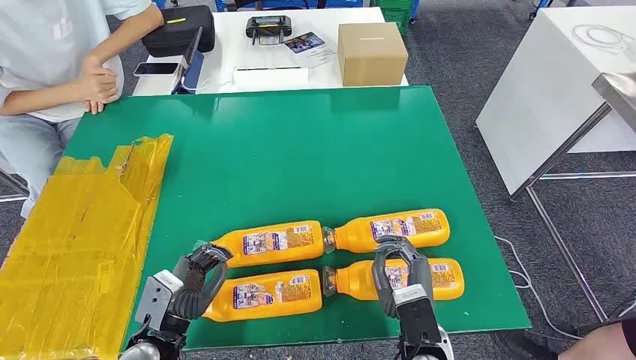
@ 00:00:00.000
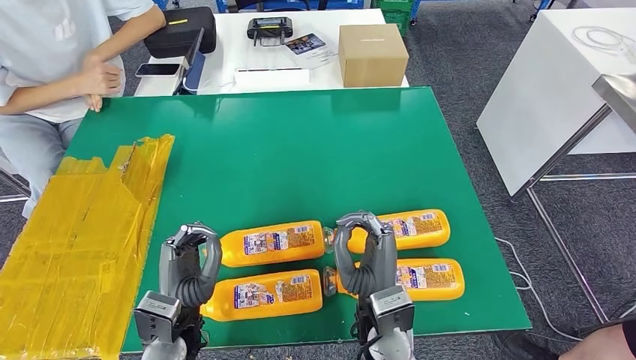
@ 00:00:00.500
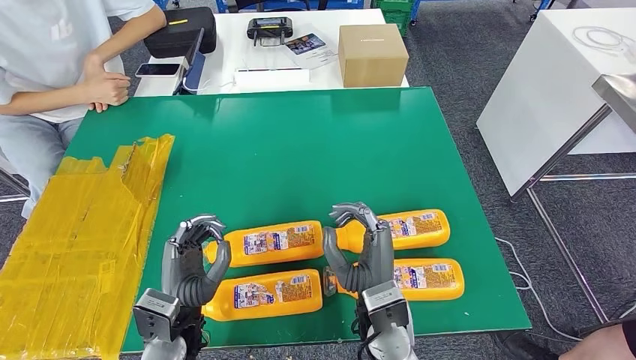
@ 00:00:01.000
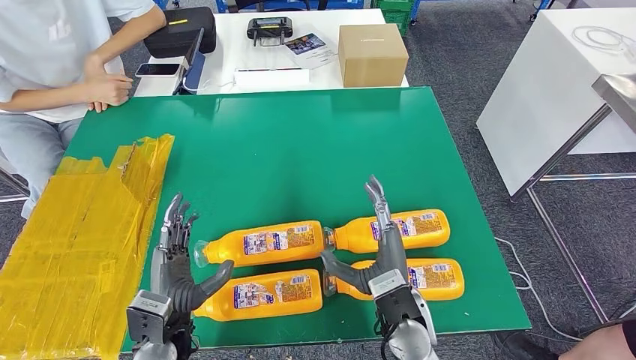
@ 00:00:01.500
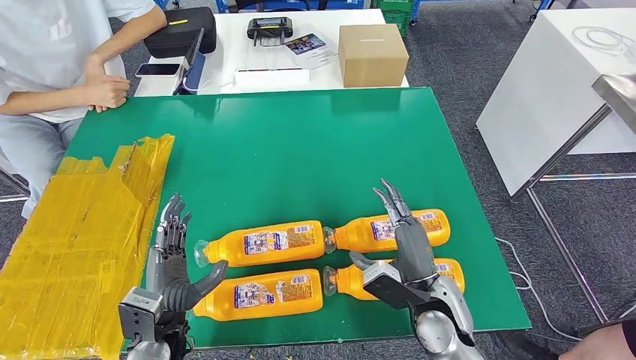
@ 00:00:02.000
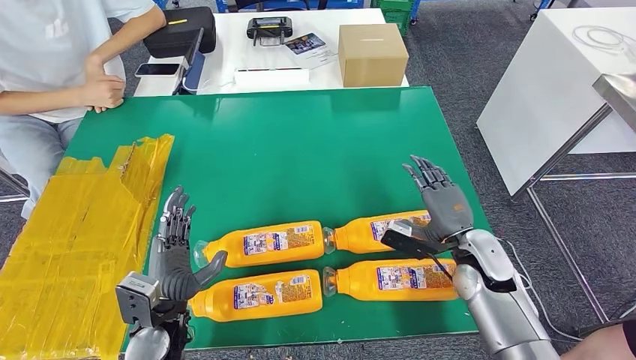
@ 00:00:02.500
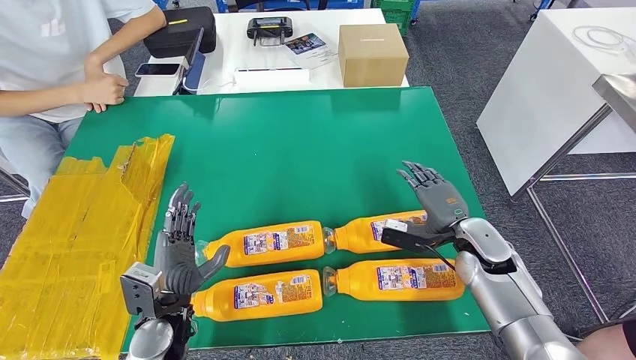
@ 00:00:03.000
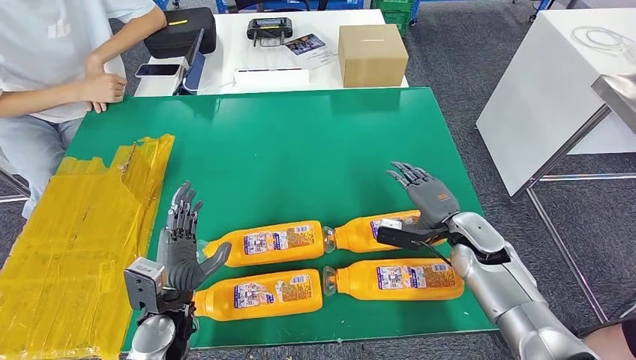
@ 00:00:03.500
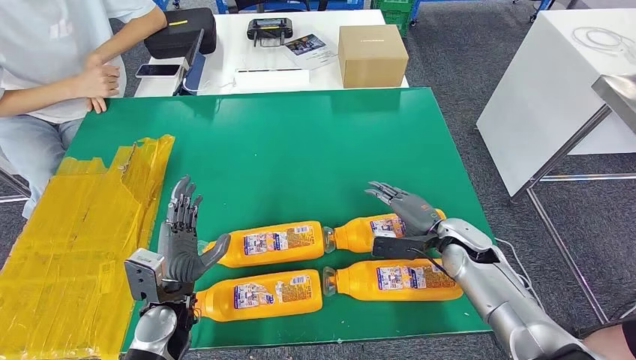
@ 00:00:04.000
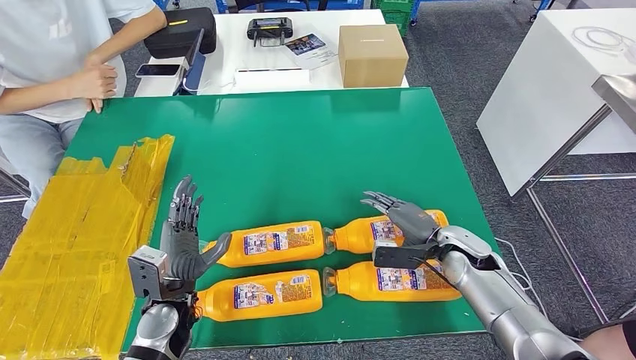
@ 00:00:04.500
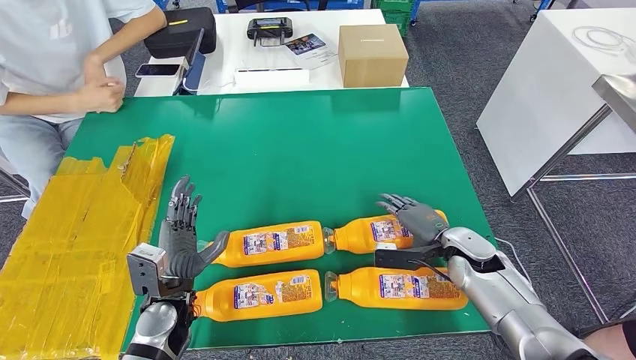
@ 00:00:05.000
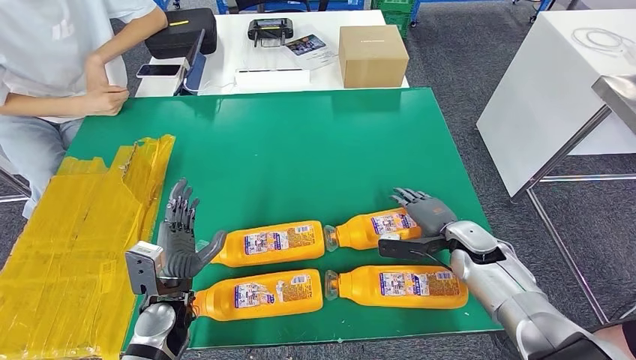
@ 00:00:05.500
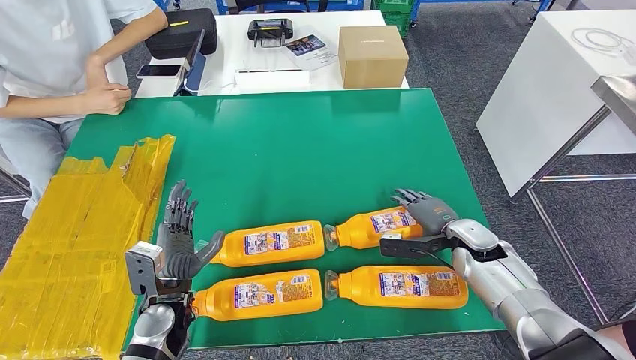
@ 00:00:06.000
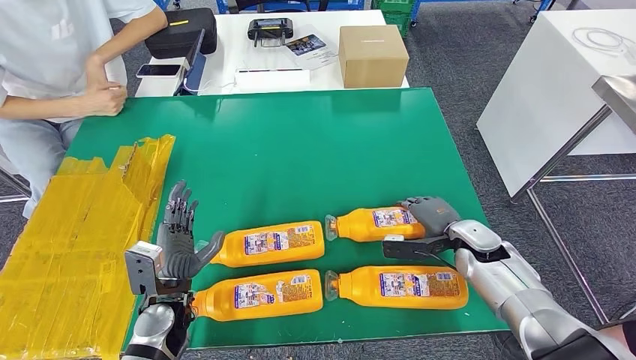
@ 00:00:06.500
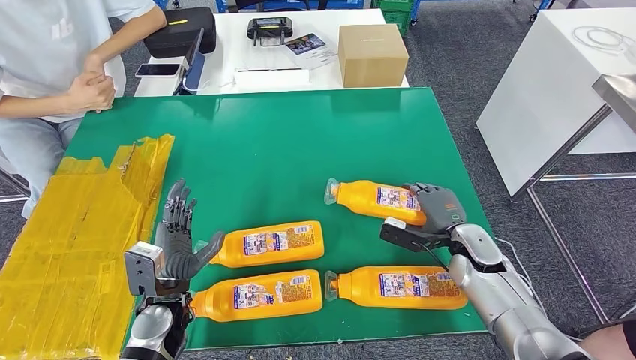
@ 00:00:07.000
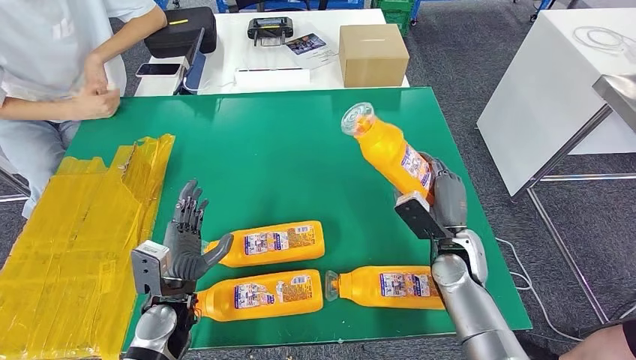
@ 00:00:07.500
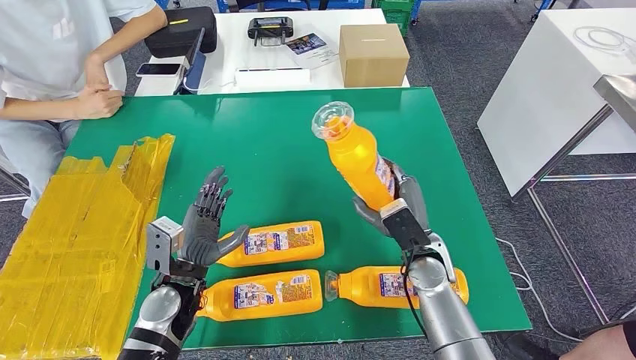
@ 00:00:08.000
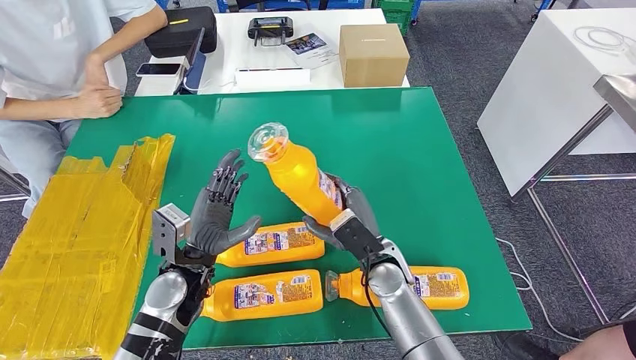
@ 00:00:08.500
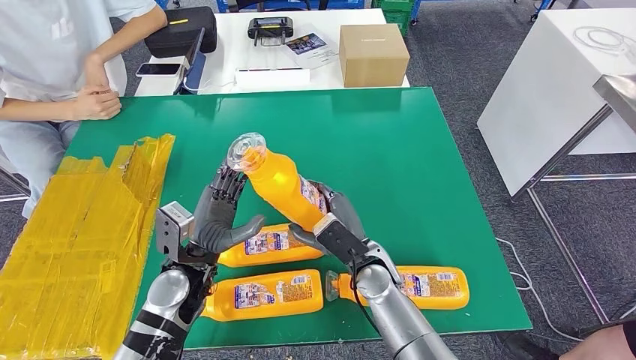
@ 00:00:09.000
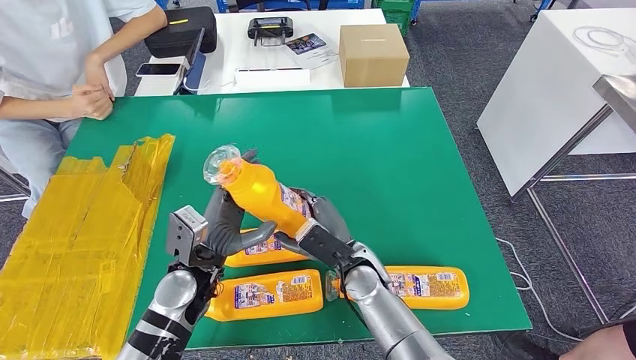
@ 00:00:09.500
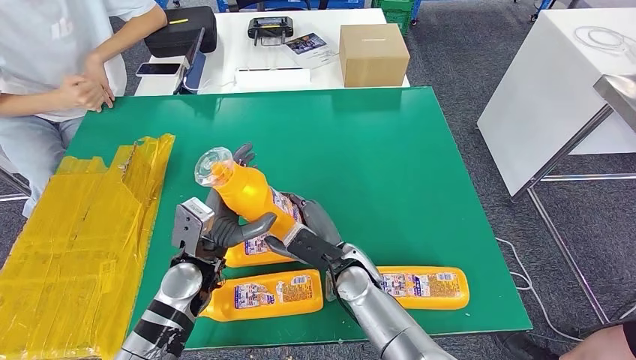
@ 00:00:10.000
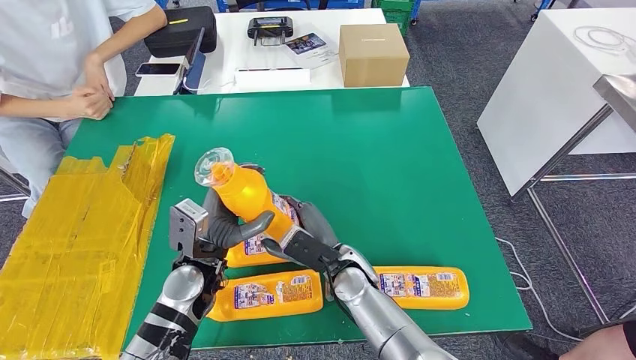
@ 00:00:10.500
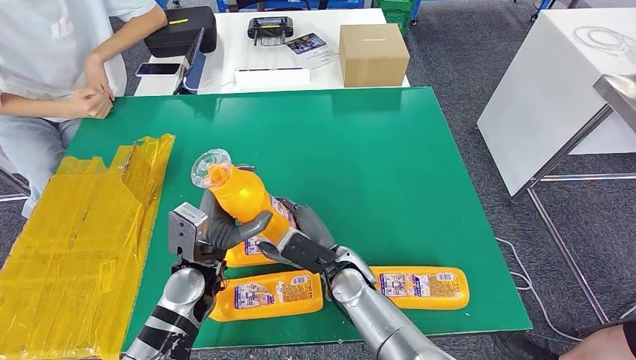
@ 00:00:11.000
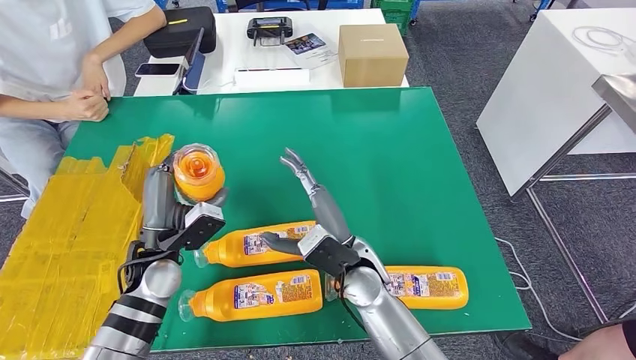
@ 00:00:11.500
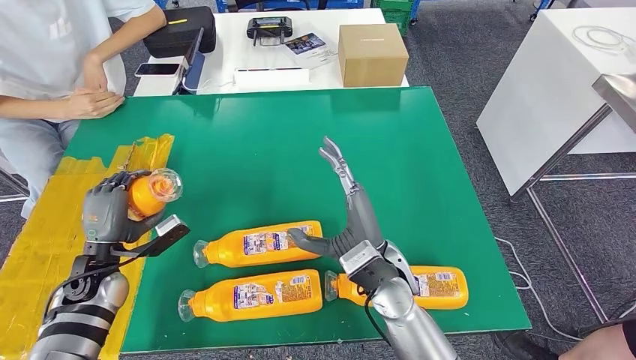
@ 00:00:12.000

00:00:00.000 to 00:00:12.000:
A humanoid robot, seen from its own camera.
Step, 00:00:00.000 to 00:00:07.000: Take the fast-moving consumer goods bottle from the table.
00:00:02.000 to 00:00:04.000: The right hand heads forward and to the right, covering some 15 cm.
00:00:06.000 to 00:00:08.000: The right hand goes approximately 10 cm to the left.
00:00:08.000 to 00:00:10.000: The left hand ends up approximately 5 cm from where it was, while the right hand moves to the left, approximately 15 cm.
00:00:10.000 to 00:00:12.000: The left hand travels to the left by some 20 cm. Meanwhile the right hand goes roughly 5 cm upward.

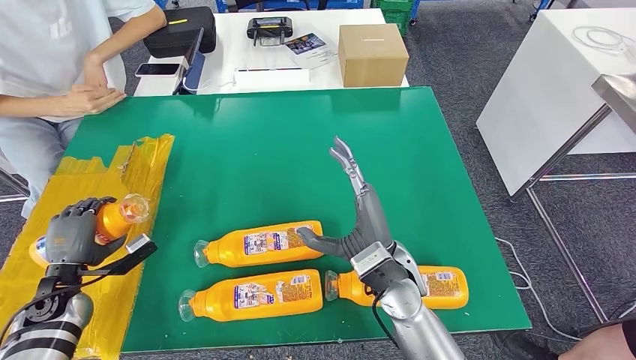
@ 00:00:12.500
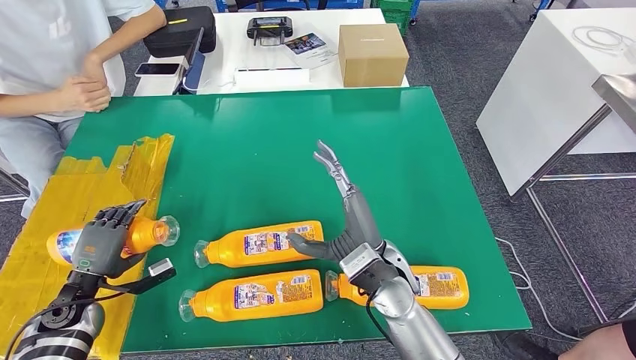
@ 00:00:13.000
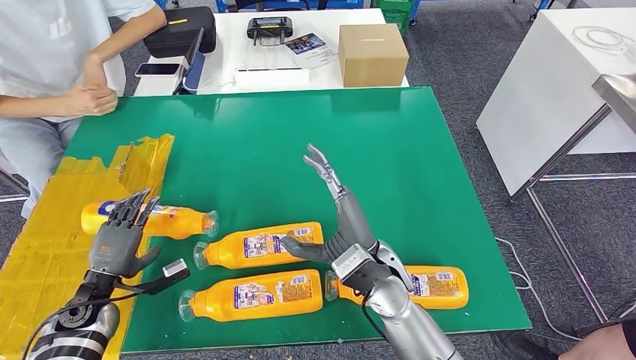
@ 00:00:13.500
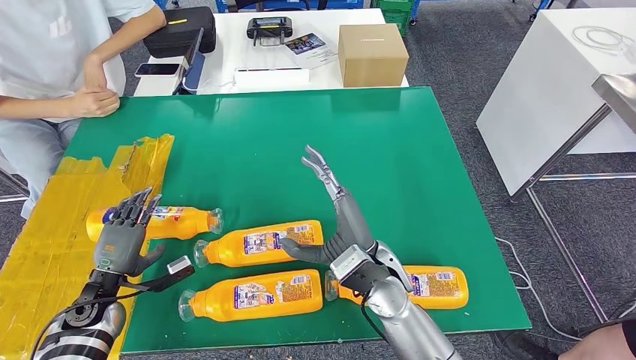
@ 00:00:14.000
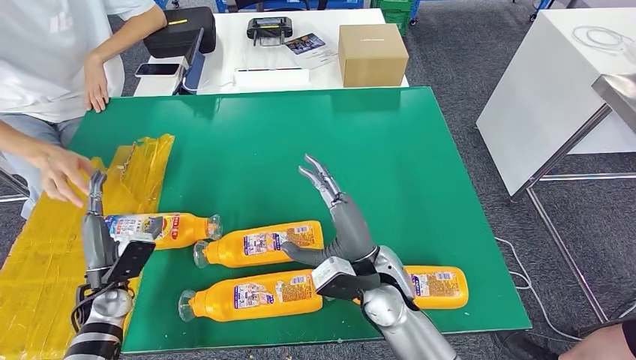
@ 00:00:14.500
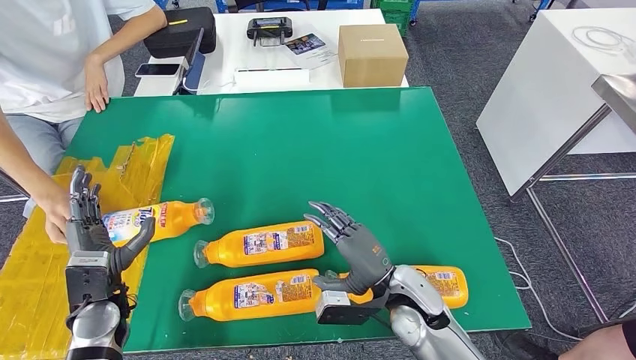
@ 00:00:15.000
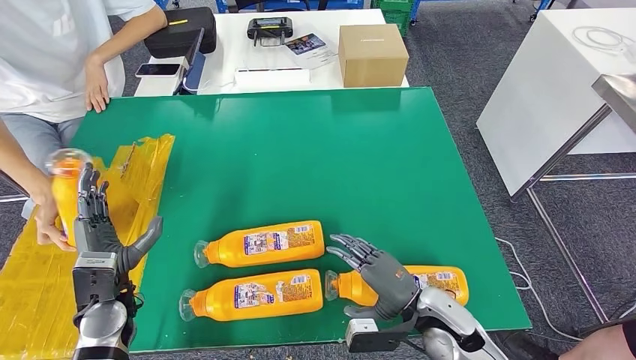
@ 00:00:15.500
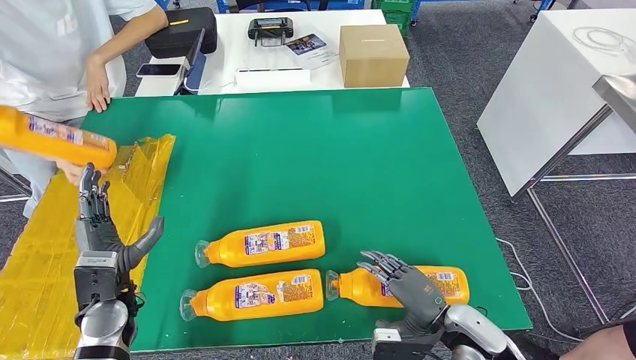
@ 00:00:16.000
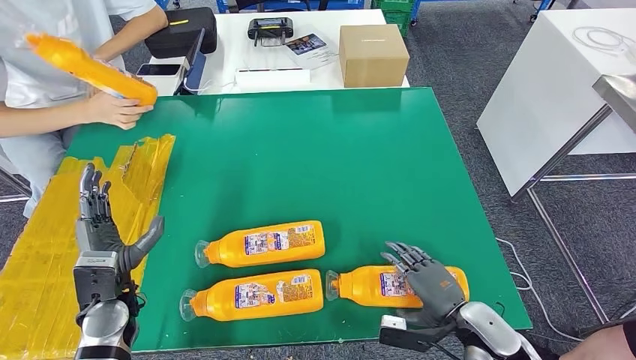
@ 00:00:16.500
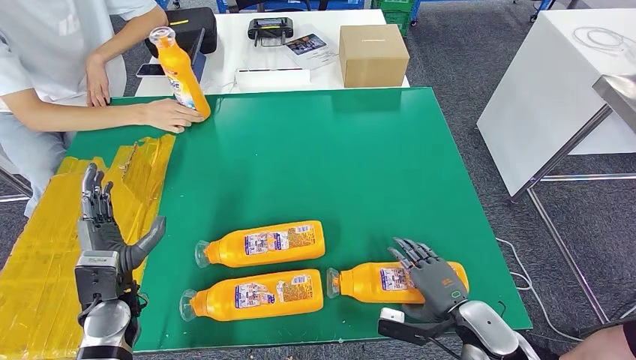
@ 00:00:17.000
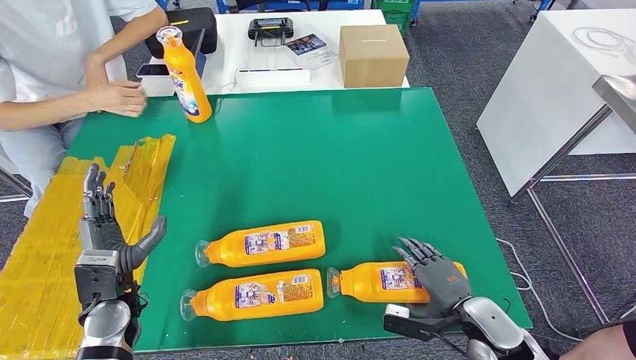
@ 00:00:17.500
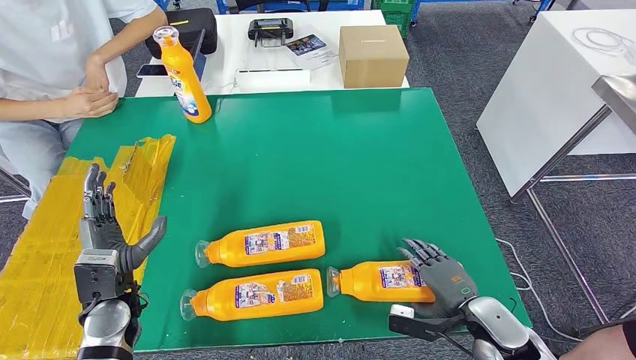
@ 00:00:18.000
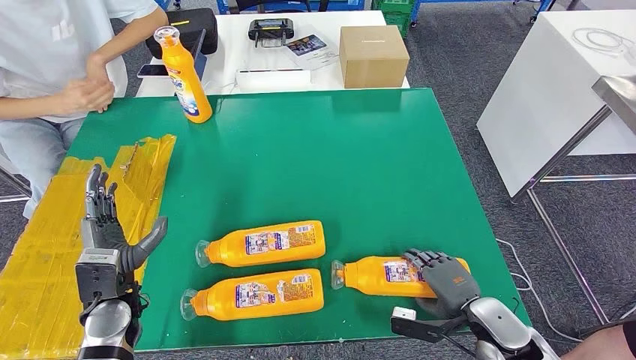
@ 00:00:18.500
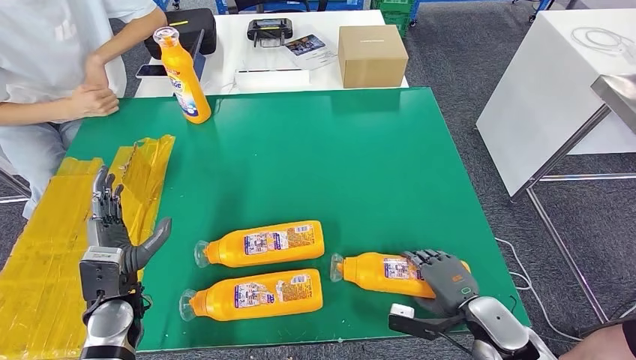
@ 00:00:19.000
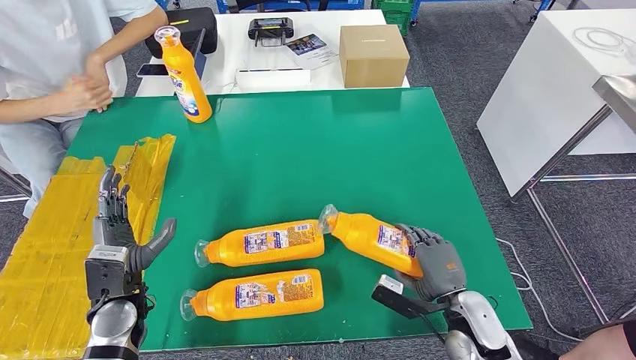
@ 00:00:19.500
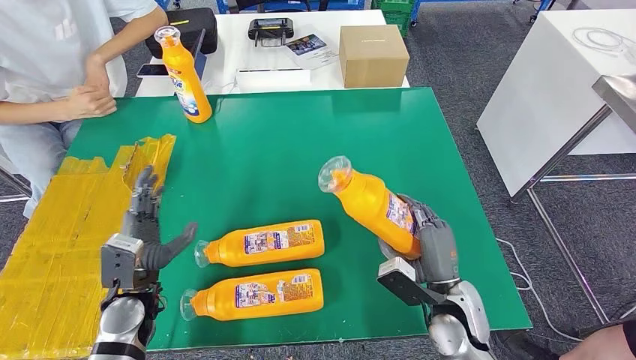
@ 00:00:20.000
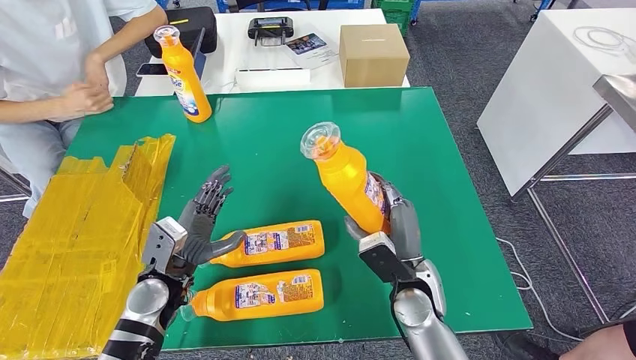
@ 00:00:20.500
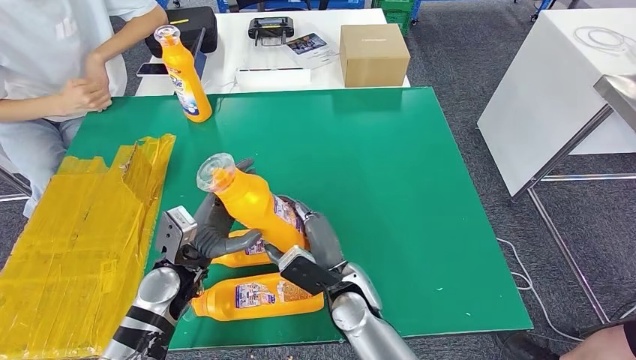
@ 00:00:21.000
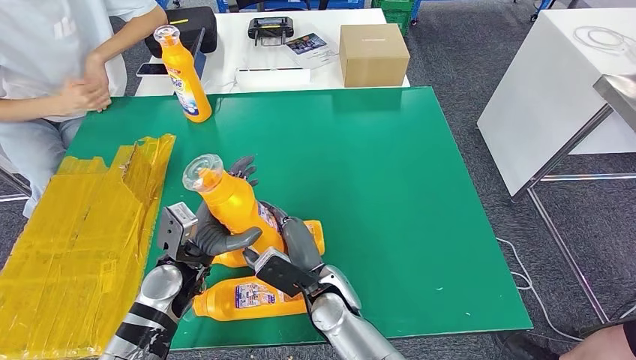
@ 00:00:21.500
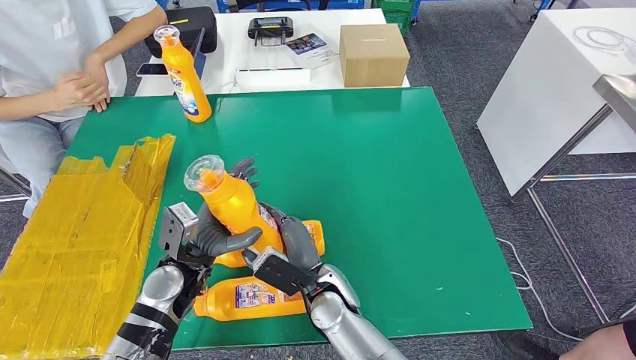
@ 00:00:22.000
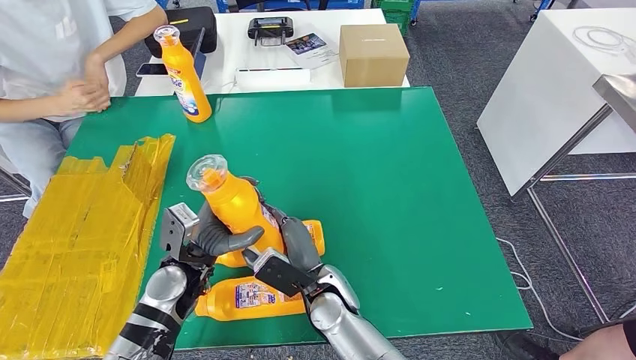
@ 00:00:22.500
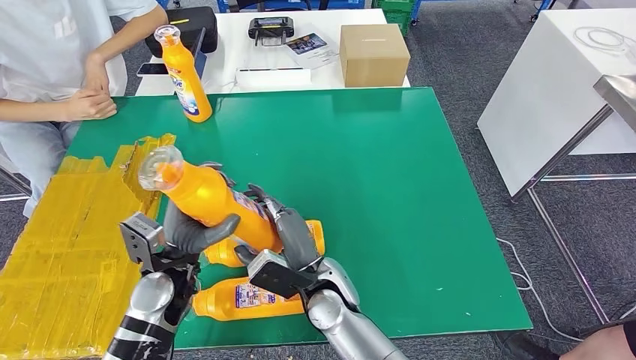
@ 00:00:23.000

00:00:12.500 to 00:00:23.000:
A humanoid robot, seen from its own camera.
Step, 00:00:12.500 to 00:00:15.500: Flip the fast-moving consumer goods bottle to the front side.
Step, 00:00:16.000 to 00:00:21.500: Pick up the fast-moving consumer goods bottle from the table.
00:00:12.500 to 00:00:14.500: The left hand is displaced to the right by approximately 10 cm.
00:00:14.500 to 00:00:16.500: The right hand is displaced to the right, downward and backward by approximately 20 cm, while the left hand shifts by roughly 5 cm.
00:00:16.500 to 00:00:19.000: The hands make only small movements.
00:00:21.000 to 00:00:23.000: The hands stay close to where they were, moving slightly.
